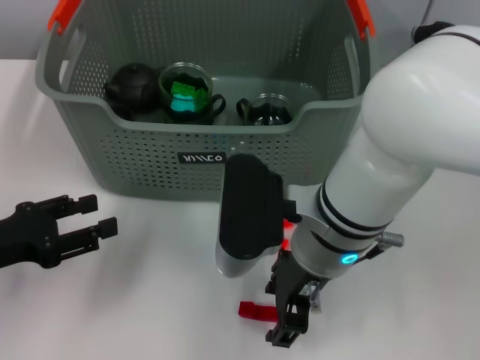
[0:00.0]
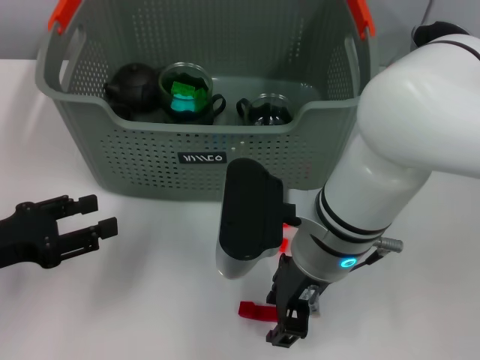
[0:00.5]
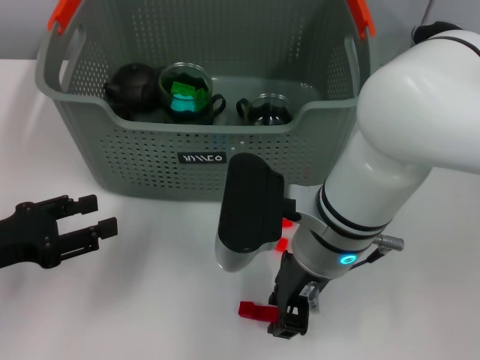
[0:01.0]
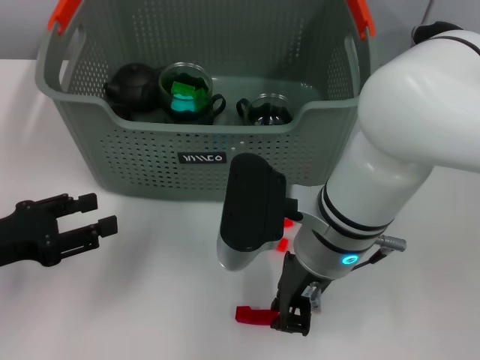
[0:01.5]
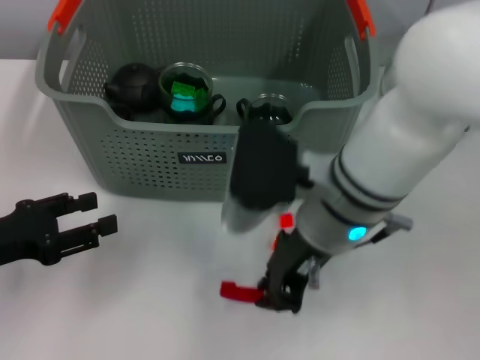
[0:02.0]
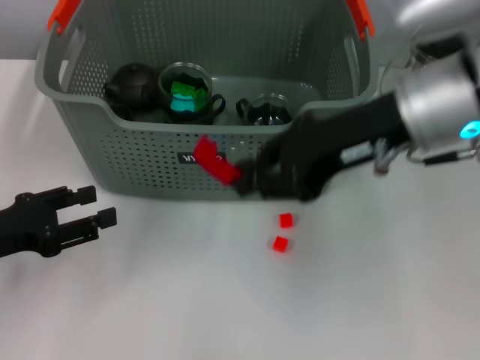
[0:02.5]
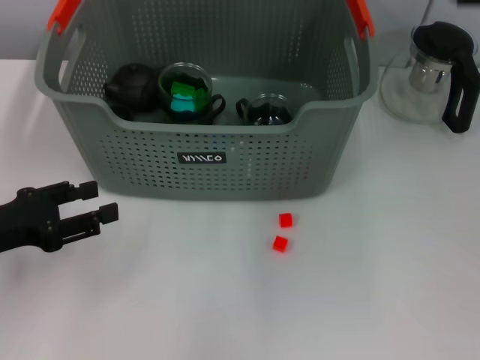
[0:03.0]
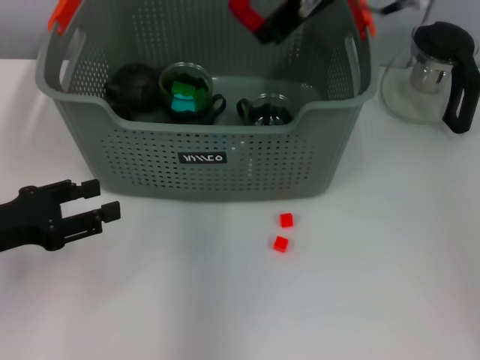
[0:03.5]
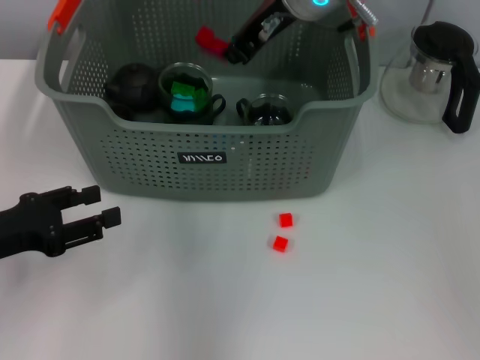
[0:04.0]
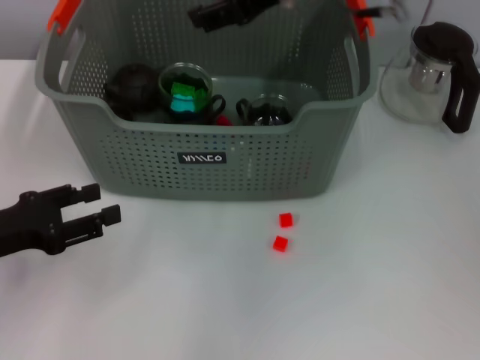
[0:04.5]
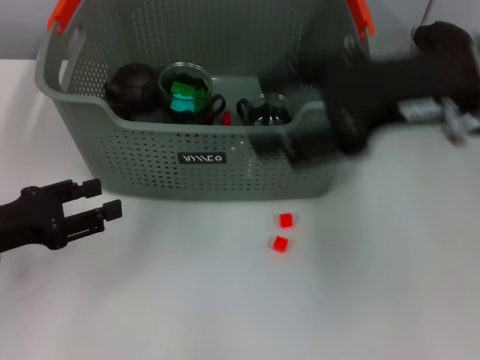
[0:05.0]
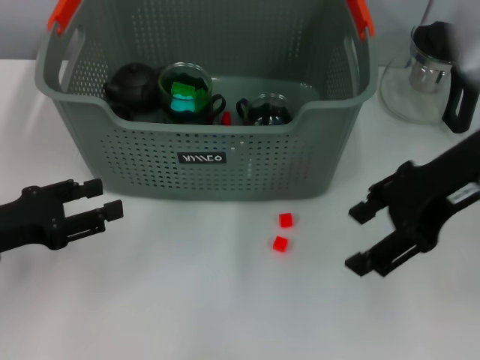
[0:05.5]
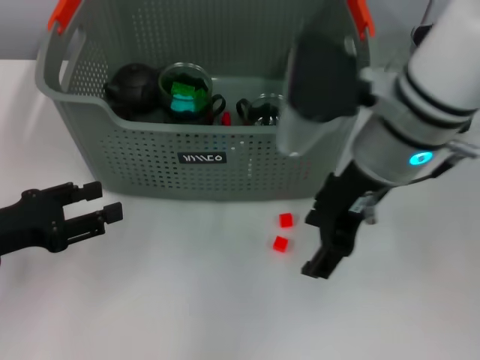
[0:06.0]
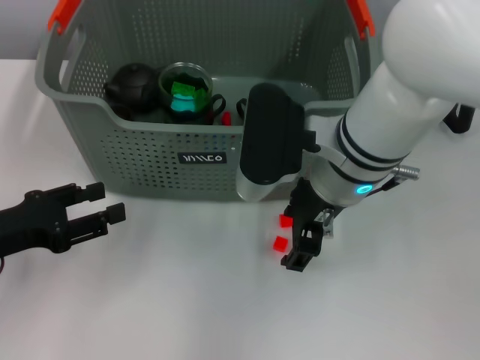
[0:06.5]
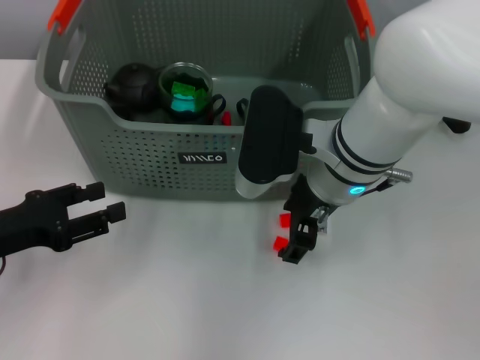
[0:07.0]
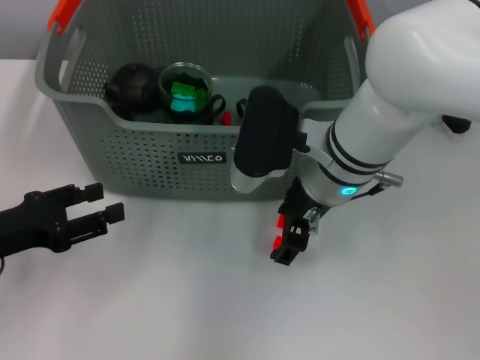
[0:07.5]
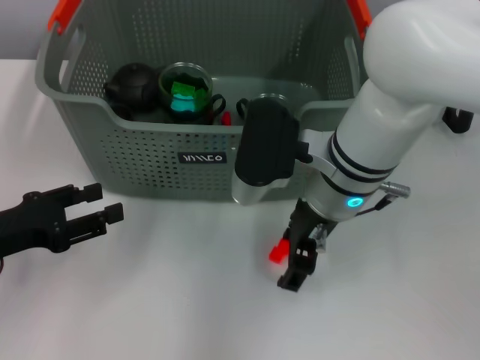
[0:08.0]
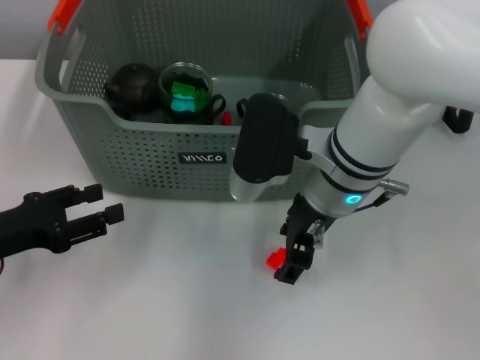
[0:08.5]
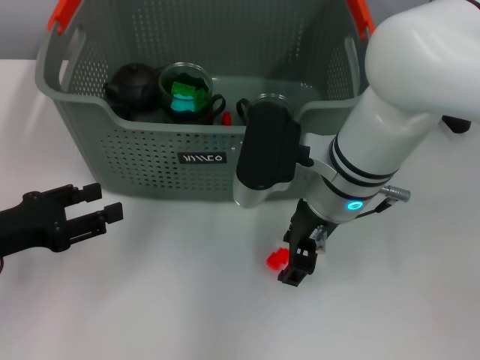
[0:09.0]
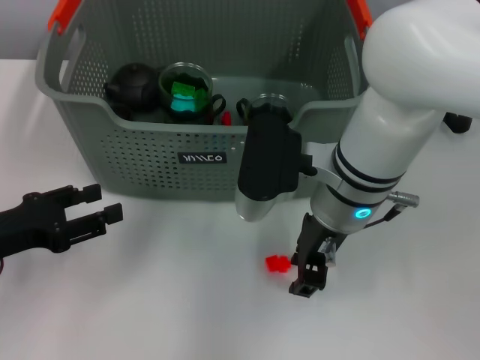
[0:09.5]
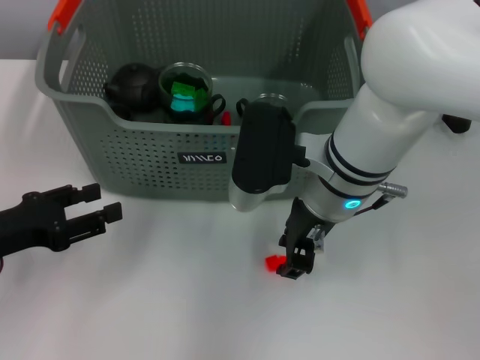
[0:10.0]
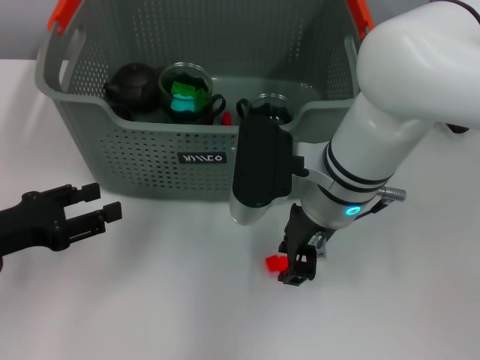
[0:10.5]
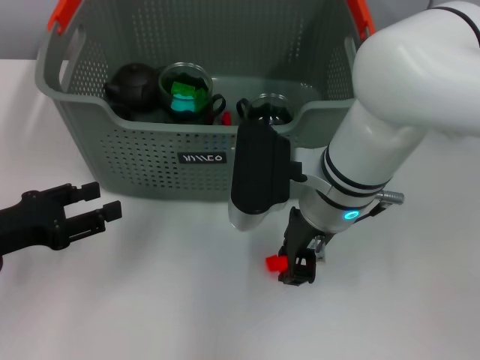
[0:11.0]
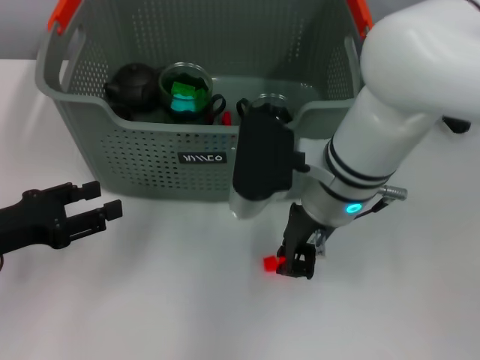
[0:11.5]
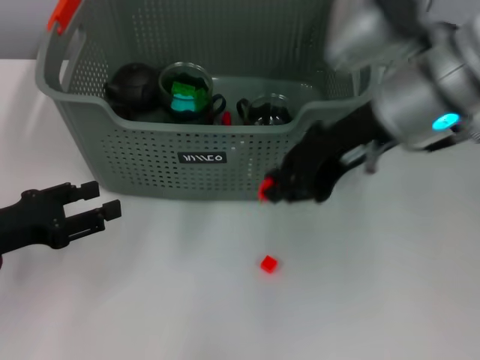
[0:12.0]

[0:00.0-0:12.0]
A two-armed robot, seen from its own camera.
Task of the whole recording: pick up the teacup on the table and place it into the storage bin, pick up the block on the table and place it into the storage bin.
Step, 2.0 to 4.0 s: Place the red block in the storage box with right gripper.
Step, 4.5 to 11.0 s: Grasp the orange block with right gripper.
0.0 to 2.0 s: The right gripper closes.
2.0 to 4.0 s: The right gripper travels forward and upward by about 15 cm.
4.0 to 6.0 s: The right gripper shifts about 10 cm backward and downward, moves roughly 15 cm to the right and comes back, and opens its fingers.
6.0 to 8.0 s: The right gripper heads downward, covering approximately 5 cm.
8.0 to 10.0 s: The right gripper closes.
10.0 to 12.0 s: The right gripper travels upward and to the right by approximately 10 cm.

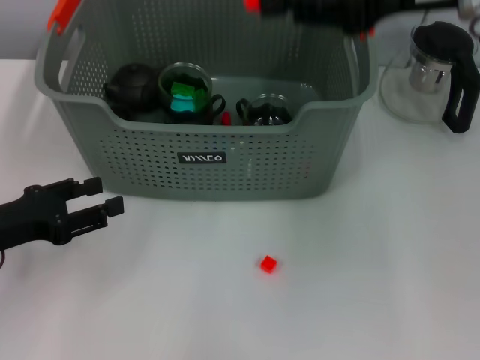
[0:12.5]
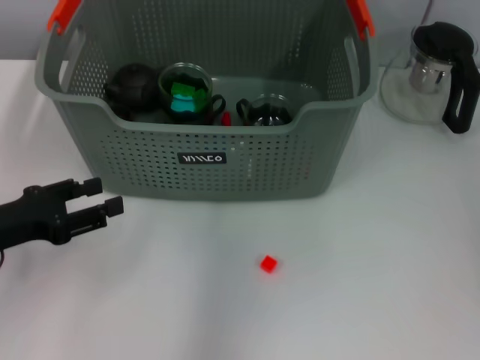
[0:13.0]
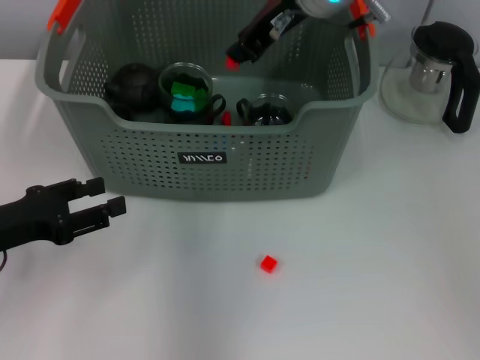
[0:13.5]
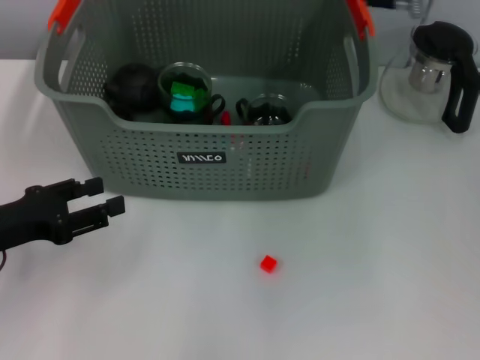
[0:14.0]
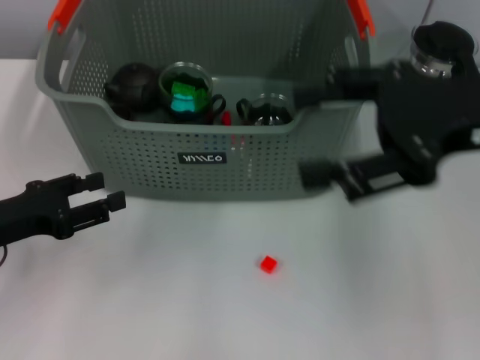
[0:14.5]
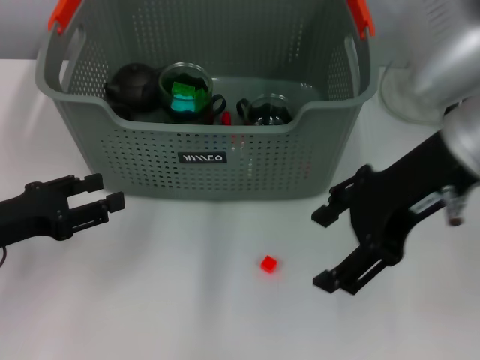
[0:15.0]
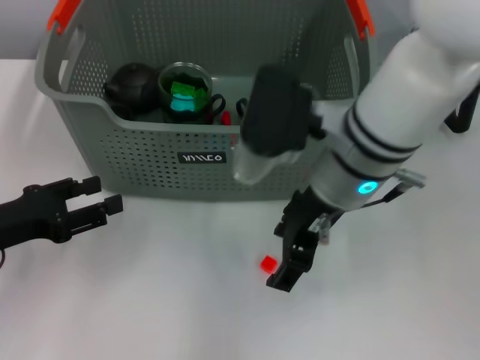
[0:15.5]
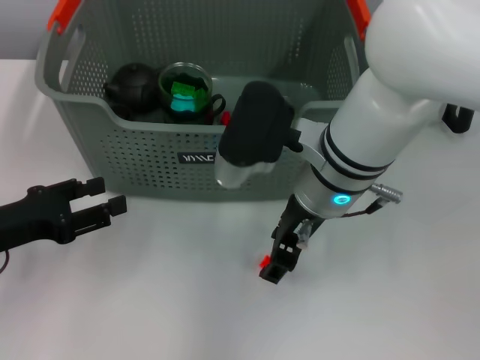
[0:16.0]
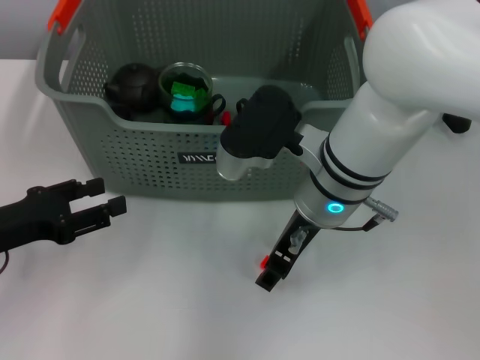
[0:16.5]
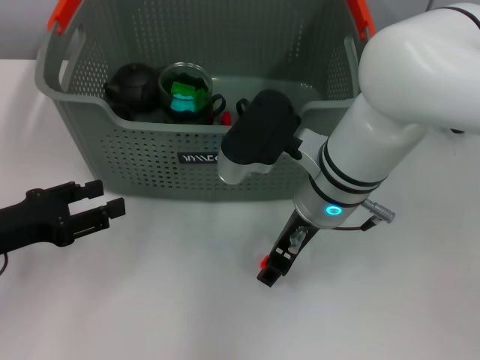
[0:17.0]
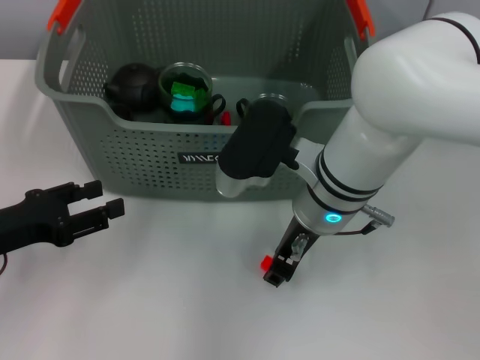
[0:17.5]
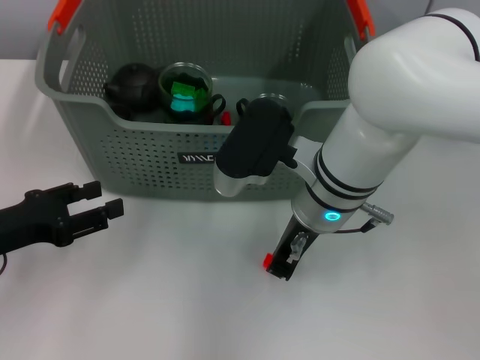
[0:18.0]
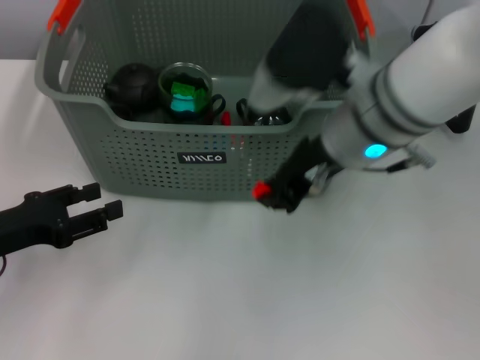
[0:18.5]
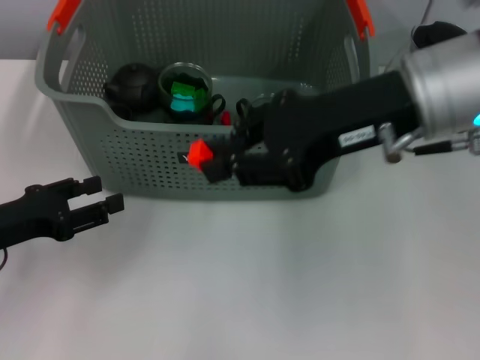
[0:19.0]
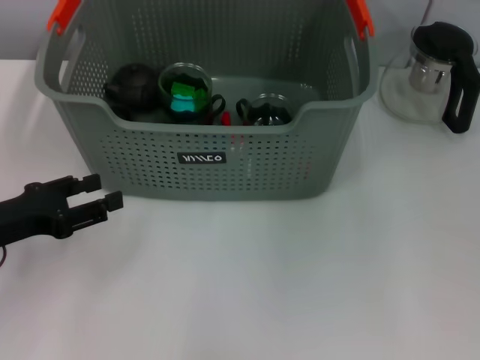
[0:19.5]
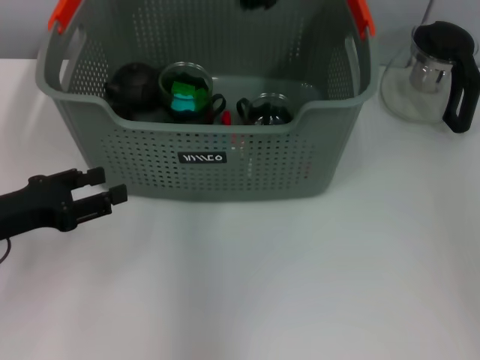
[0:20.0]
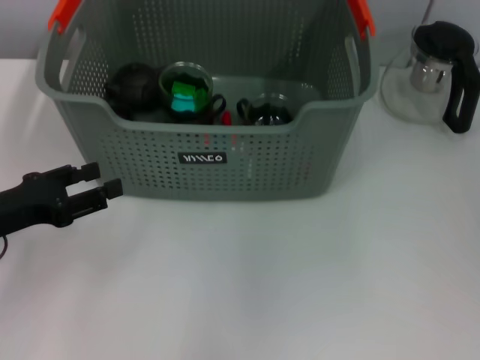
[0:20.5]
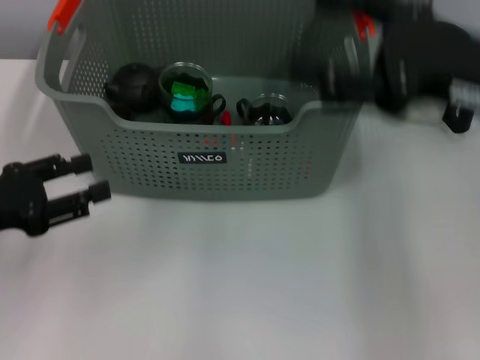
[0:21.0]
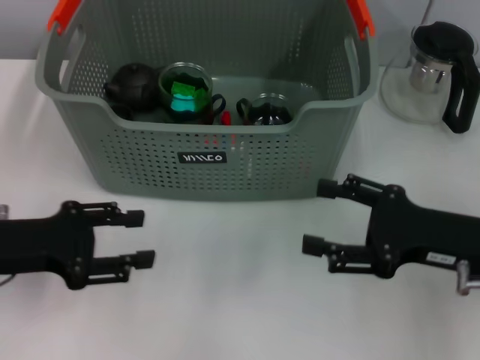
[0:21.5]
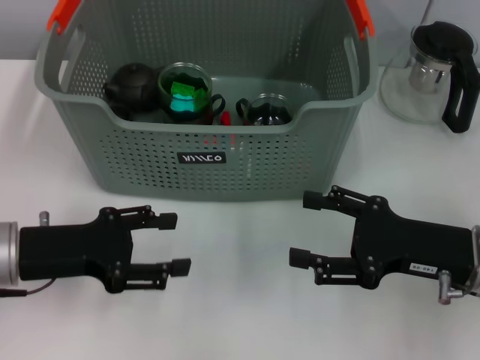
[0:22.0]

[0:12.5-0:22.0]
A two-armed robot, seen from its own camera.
Task of the whole recording: pick up the teacup on the table and place it into the storage bin, pick up the block on the table and place it into the storage bin.
Step, 14.0 to 17.5 s: Grasp the orange block with right gripper.
Step, 18.0 to 20.0 s: Place the orange block in the storage box with right gripper.
12.5 to 14.5 s: The right gripper is displaced backward by about 5 cm, goes to the left and returns, approximately 15 cm each way, and opens.
14.5 to 16.5 s: The right gripper travels to the left and downward by about 20 cm.
16.5 to 18.0 s: The right gripper closes.
18.0 to 20.0 s: The right gripper goes about 20 cm upward and forward.
20.0 to 22.0 s: The right gripper heads downward, backward and to the right, covering roughly 30 cm, and opens up.

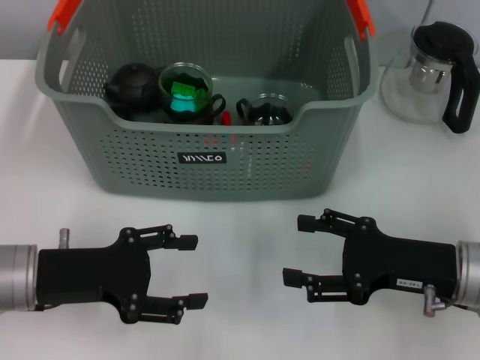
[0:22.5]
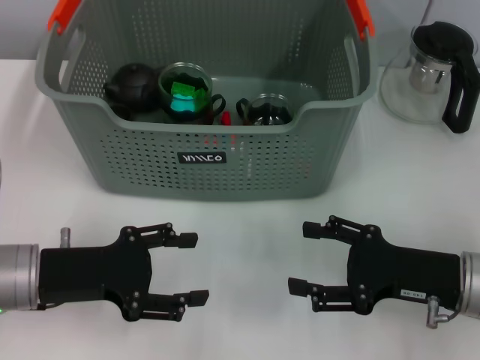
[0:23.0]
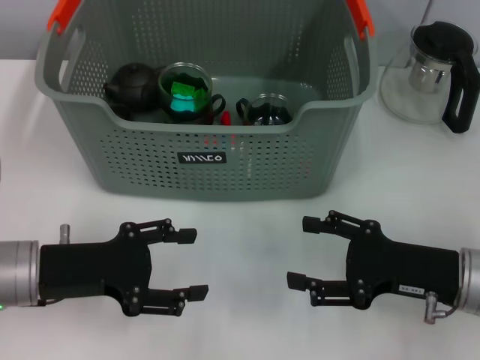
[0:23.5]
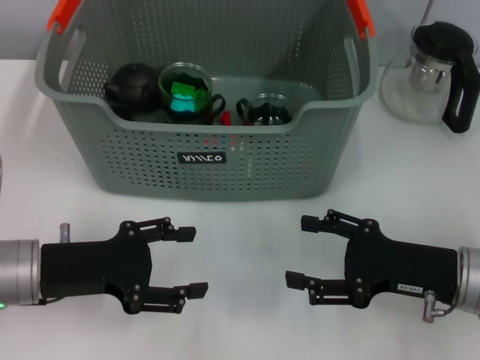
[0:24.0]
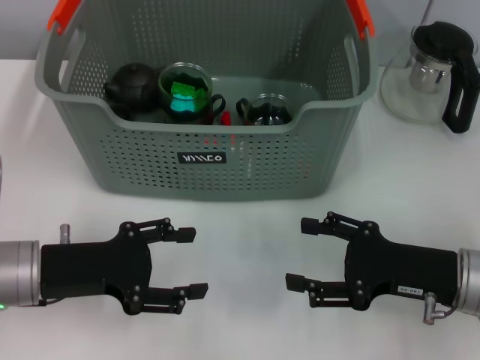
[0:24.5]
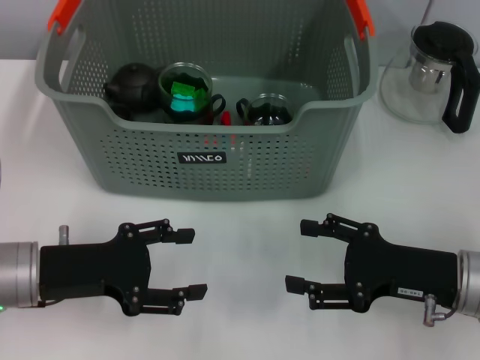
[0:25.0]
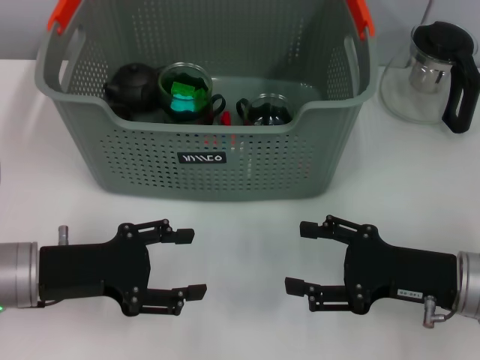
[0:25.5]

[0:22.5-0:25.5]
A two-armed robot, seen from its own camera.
Task of the whole recording: pick up the teacup on the table and place it into the storage bin, pick up the block on the table and place it into the storage bin.
22.5 to 25.5 s: The two grippers keep their place.

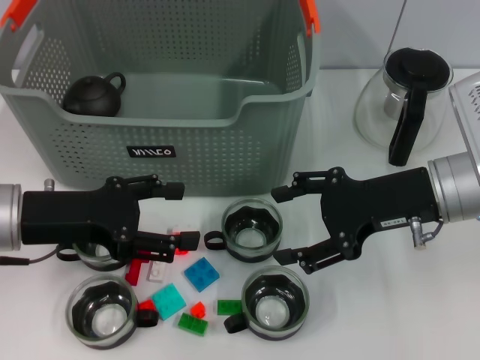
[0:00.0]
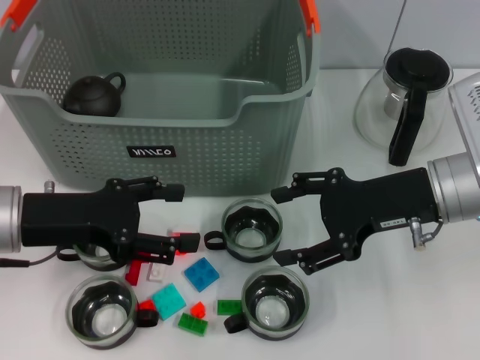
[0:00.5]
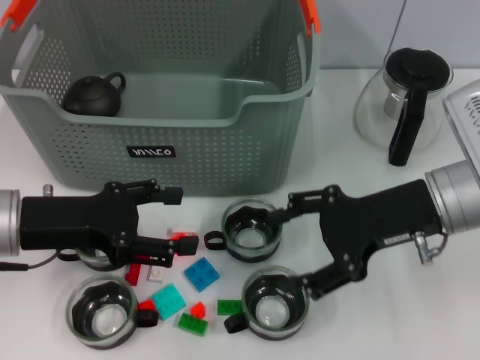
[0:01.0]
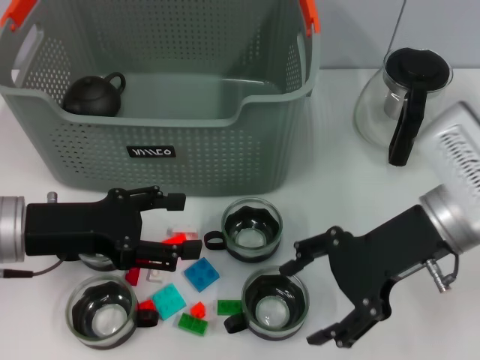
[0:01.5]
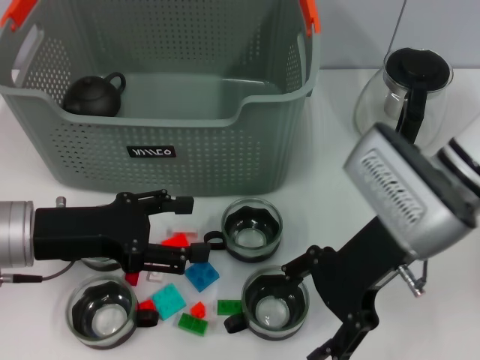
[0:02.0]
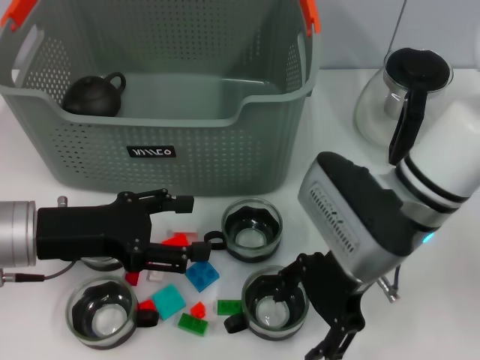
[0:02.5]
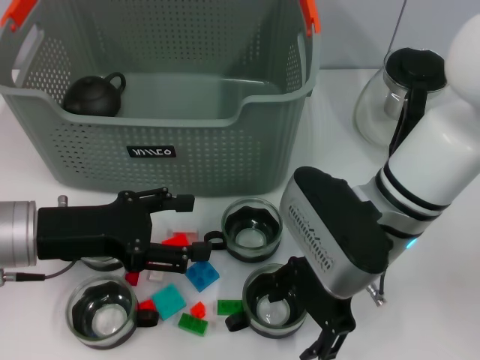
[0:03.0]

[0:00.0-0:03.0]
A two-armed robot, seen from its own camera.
Task of the whole recording: pick up the teacup on the table and place it into the storage bin, pick up the block on the table and place it into the storage bin.
1.5 to 3.0 s: The right gripper shifts some 10 cm to the left.
